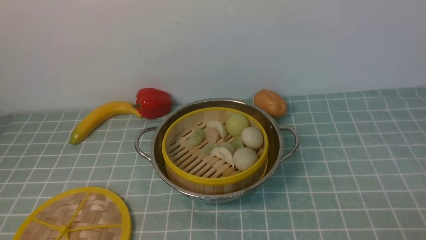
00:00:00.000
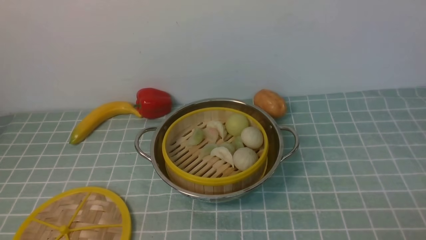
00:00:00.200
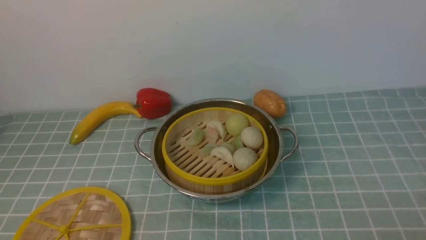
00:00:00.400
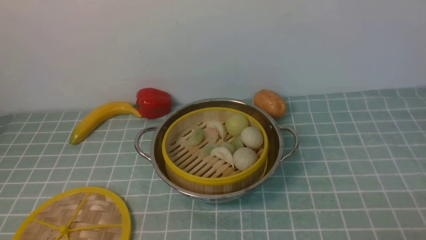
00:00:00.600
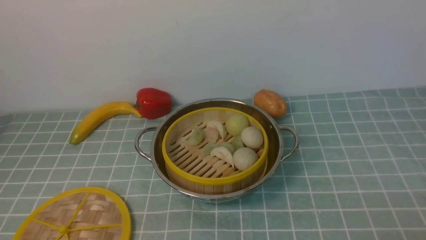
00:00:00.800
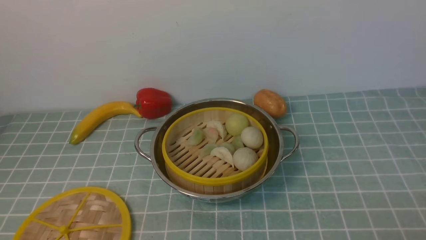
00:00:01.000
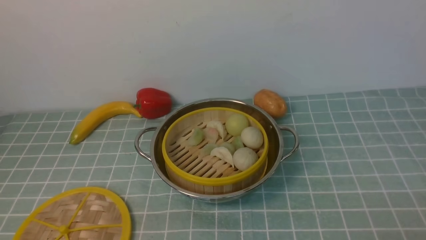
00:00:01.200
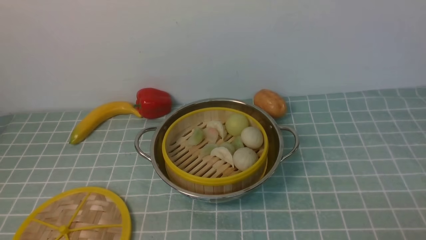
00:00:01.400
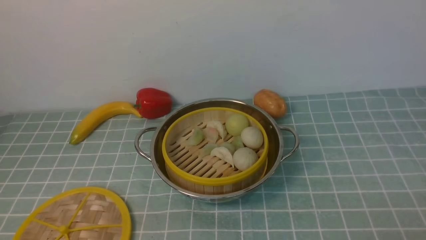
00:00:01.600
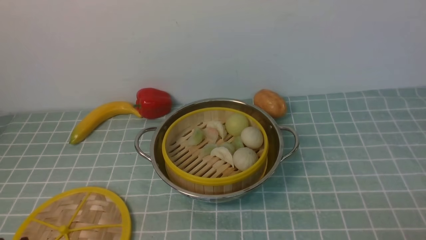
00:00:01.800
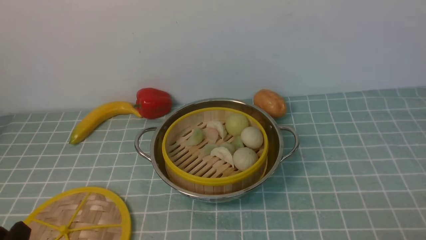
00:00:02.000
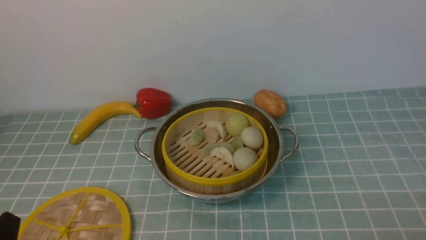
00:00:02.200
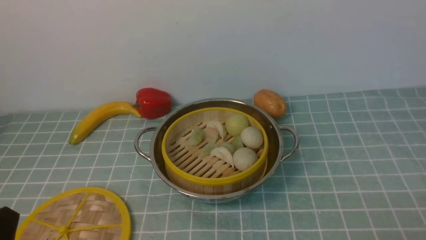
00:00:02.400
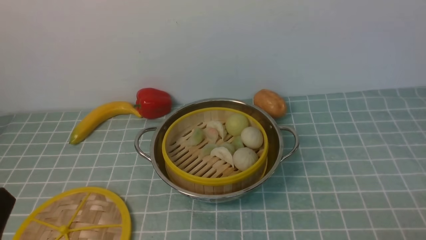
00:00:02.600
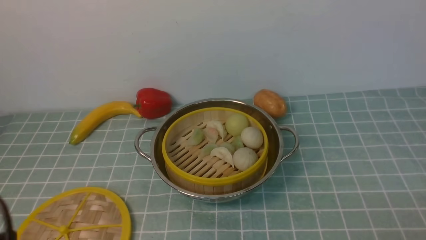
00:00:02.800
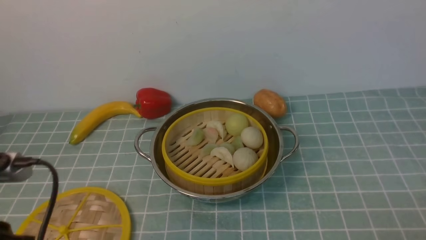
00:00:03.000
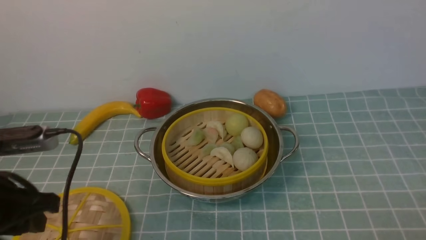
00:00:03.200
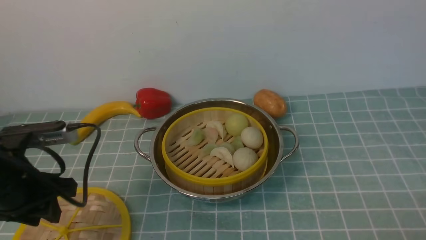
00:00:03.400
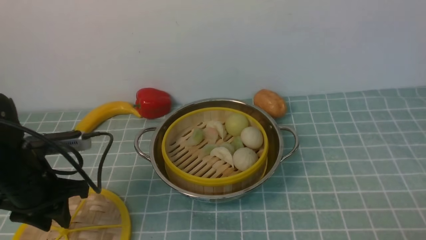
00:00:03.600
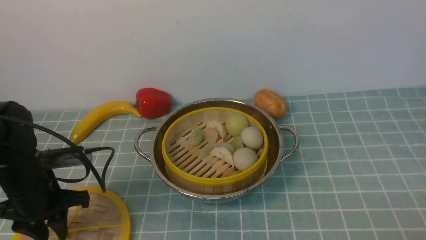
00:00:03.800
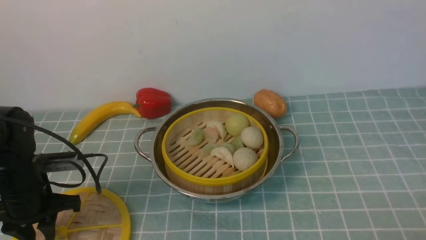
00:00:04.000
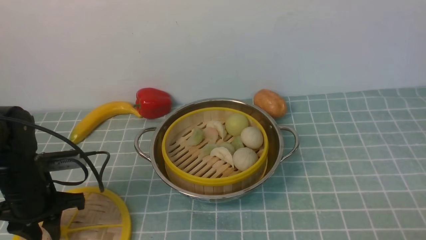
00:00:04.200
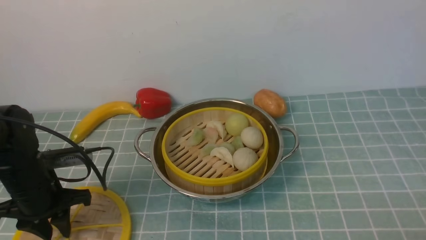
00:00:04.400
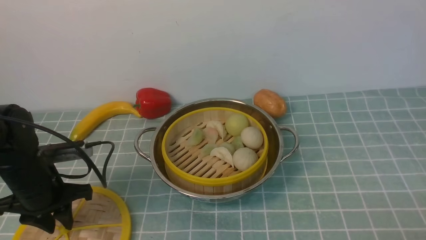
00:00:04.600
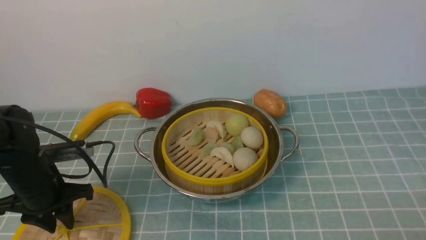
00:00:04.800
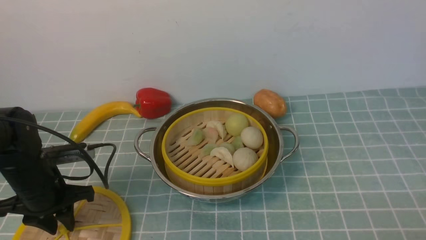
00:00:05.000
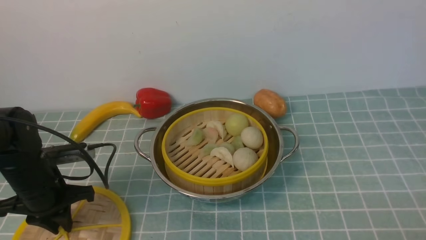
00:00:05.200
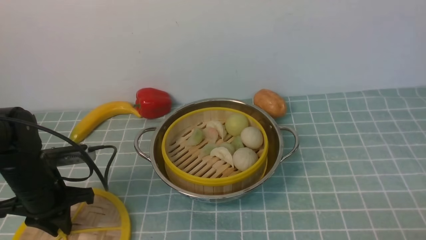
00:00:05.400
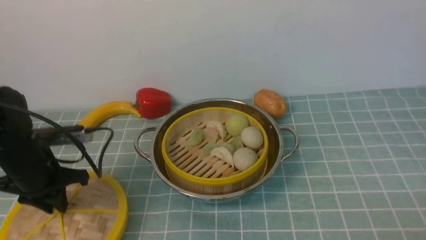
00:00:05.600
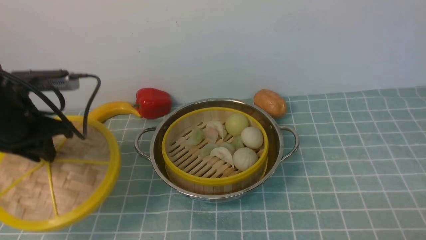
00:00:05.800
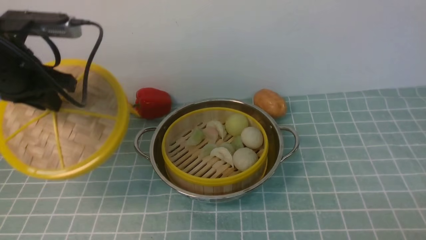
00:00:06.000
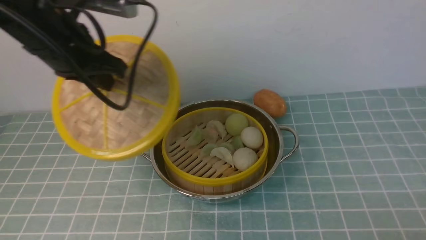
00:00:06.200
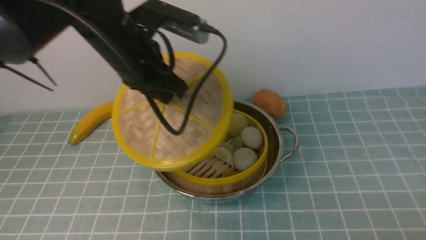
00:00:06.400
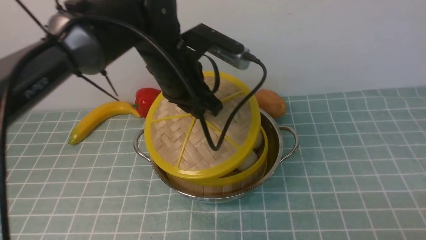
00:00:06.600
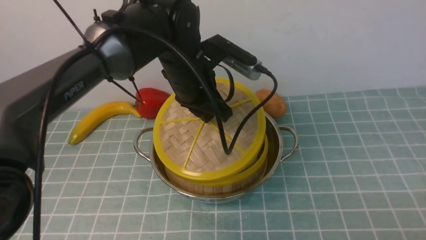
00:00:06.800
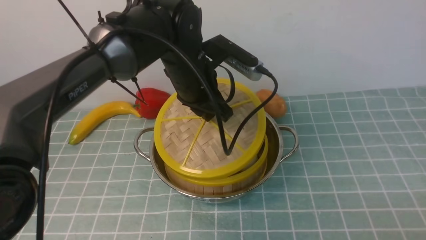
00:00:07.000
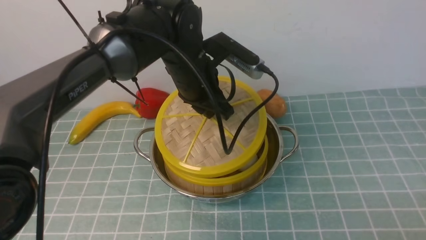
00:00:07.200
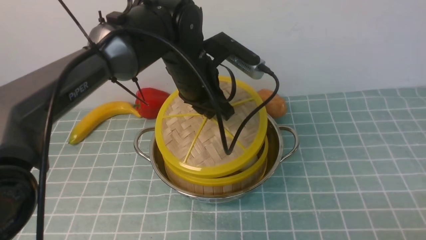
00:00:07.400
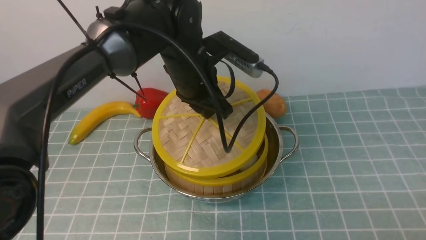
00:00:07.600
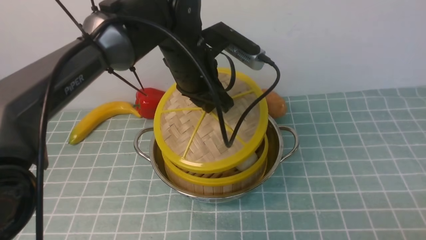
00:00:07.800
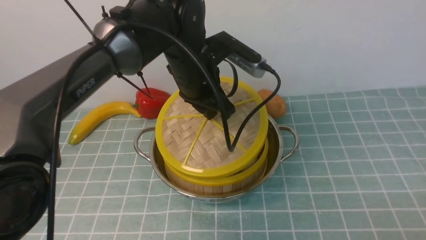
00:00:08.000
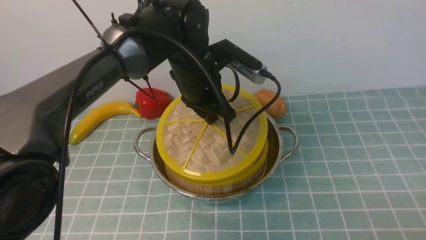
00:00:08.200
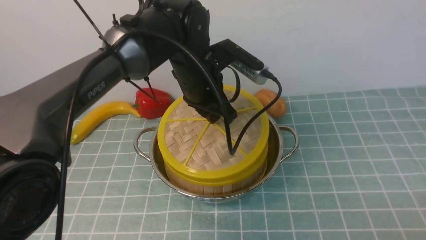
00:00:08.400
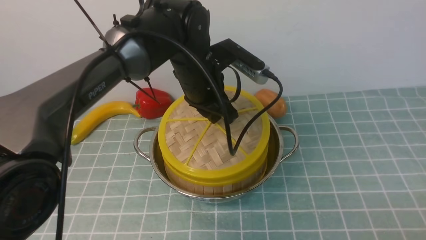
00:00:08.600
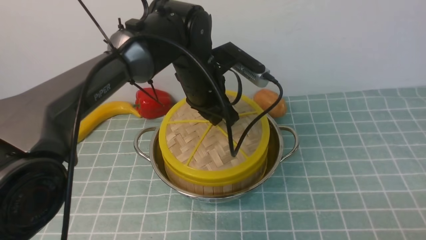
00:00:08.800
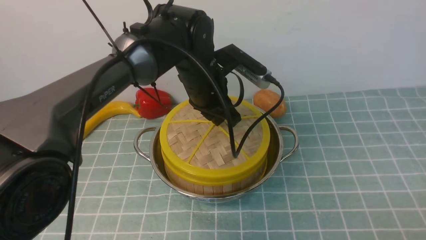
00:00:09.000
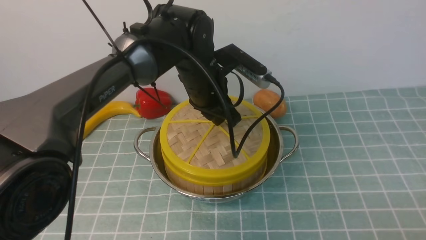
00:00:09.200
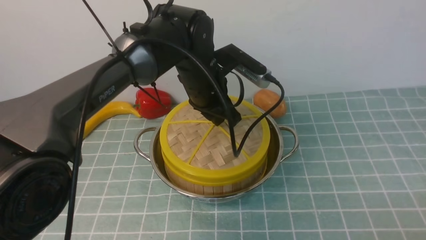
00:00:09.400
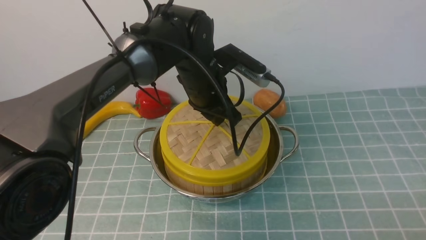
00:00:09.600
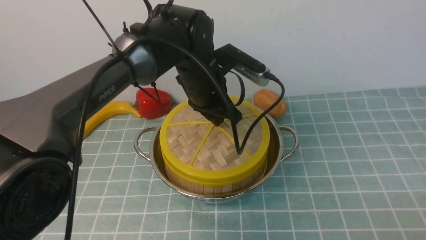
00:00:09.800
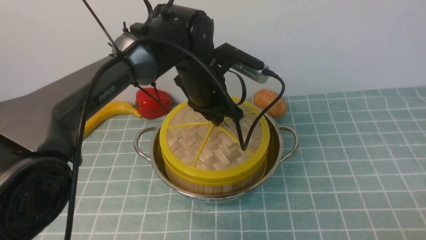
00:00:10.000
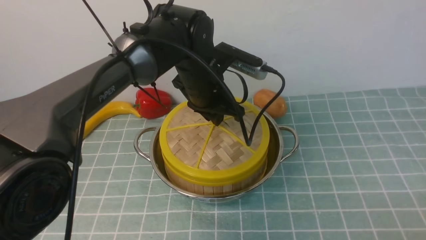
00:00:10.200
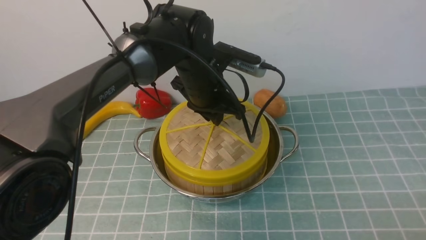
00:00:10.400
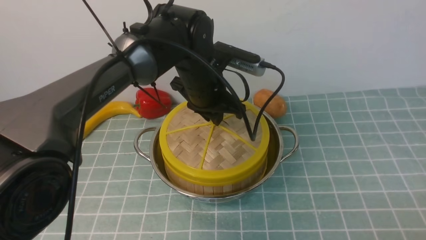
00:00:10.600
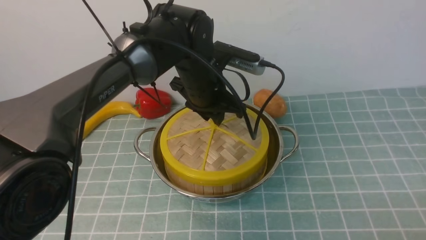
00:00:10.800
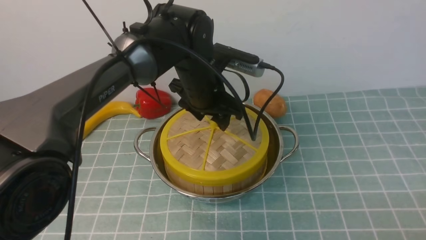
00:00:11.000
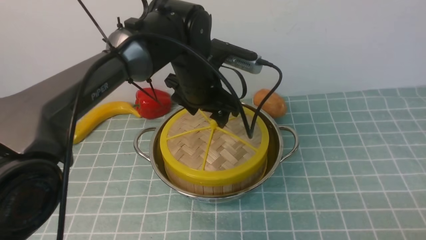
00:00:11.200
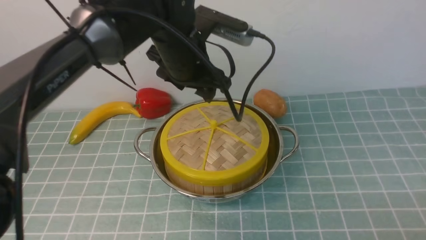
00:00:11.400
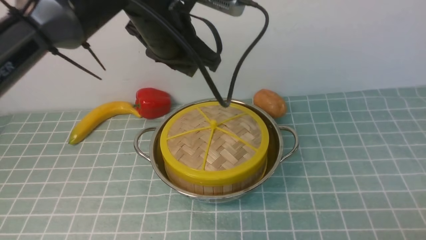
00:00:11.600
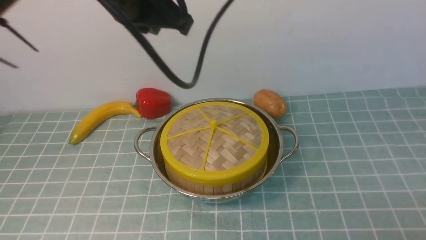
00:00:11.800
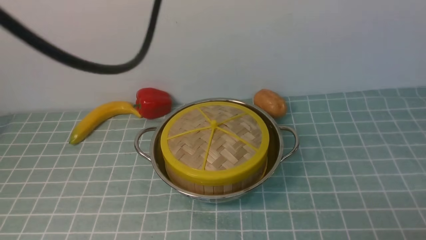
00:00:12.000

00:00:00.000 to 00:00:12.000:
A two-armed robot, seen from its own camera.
Task of the whole recording: place the steamer in the pot on the blue tablecloth, and put the lid on the steamer.
Step, 00:00:00.000 to 00:00:05.800: use the left arm to lift the lid of the steamer.
Step, 00:00:06.000 to 00:00:11.400: use the left arm to place the steamer lid on the steamer.
00:00:01.600 to 00:00:03.000: The left gripper goes some 15 cm upward and forward.
00:00:03.000 to 00:00:04.400: The left gripper heads forward and downward, covering some 20 cm.
00:00:04.400 to 00:00:06.000: The left gripper travels upward by about 15 cm, and closes its fingers.
00:00:06.000 to 00:00:07.600: The left gripper is displaced to the right by about 20 cm.
00:00:09.000 to 00:00:10.400: The grippers stay close to where they were, moving slightly.
00:00:10.400 to 00:00:12.000: The left gripper moves upward, backward and to the left, some 30 cm, and closes its fingers.

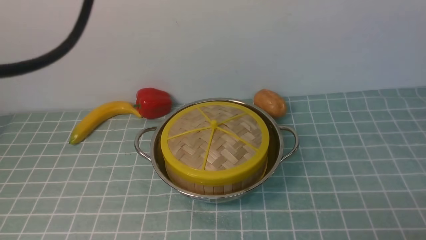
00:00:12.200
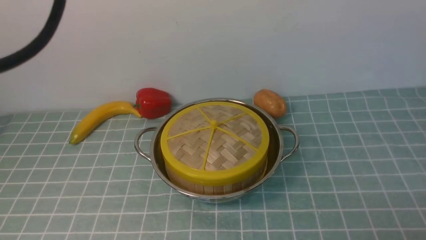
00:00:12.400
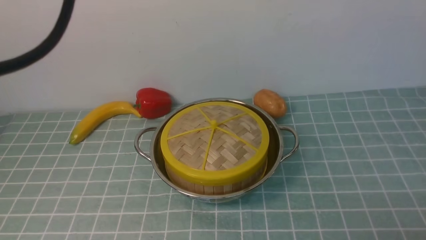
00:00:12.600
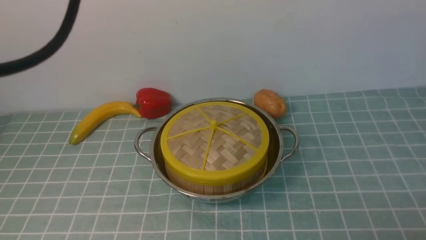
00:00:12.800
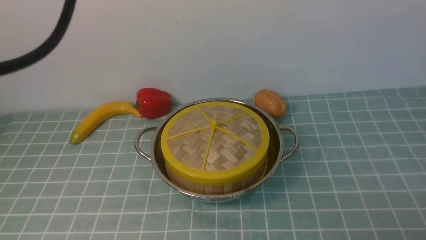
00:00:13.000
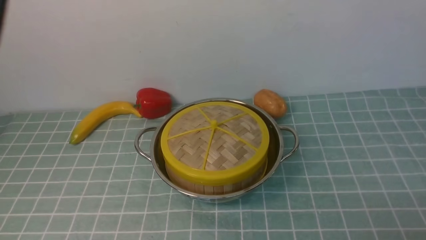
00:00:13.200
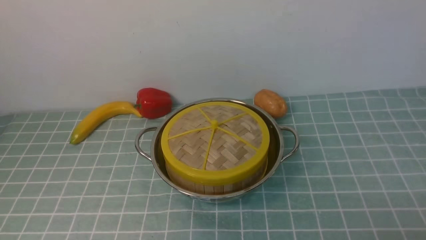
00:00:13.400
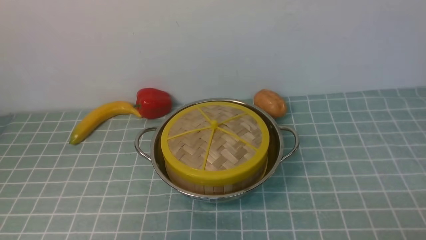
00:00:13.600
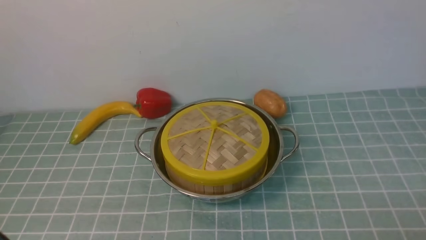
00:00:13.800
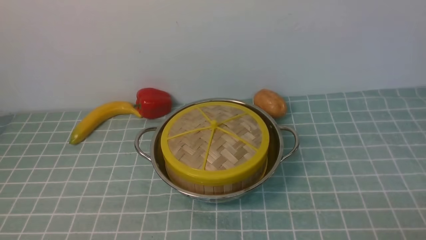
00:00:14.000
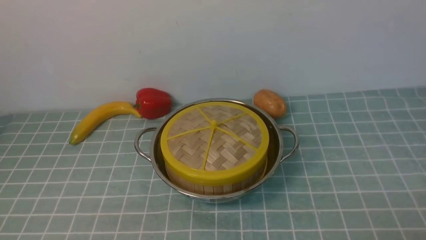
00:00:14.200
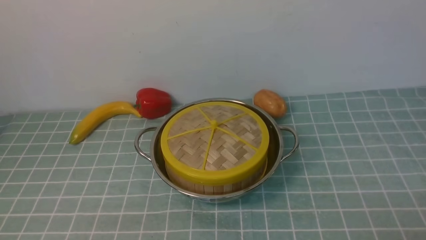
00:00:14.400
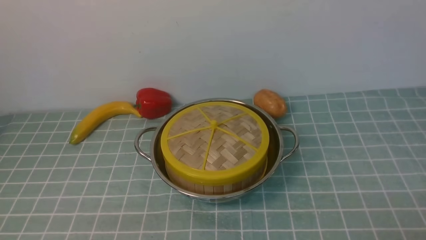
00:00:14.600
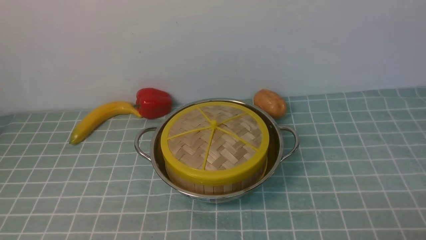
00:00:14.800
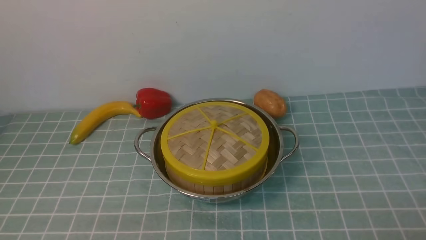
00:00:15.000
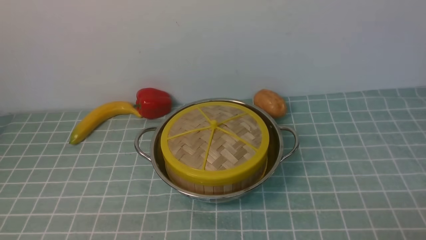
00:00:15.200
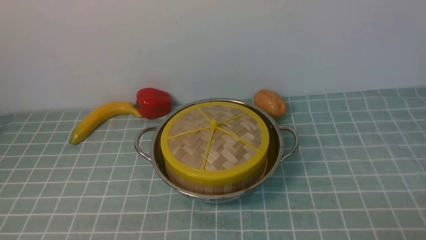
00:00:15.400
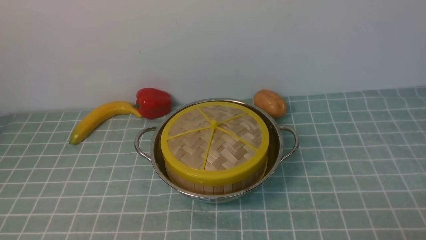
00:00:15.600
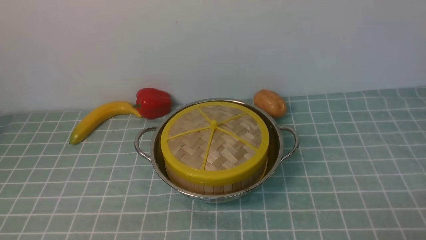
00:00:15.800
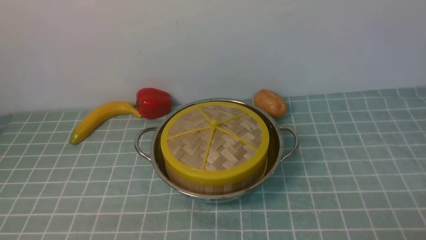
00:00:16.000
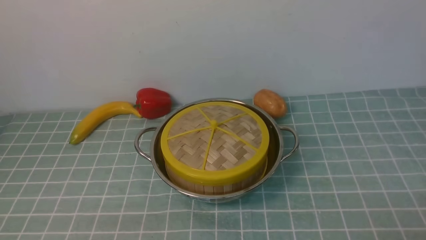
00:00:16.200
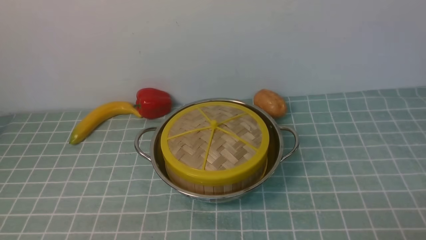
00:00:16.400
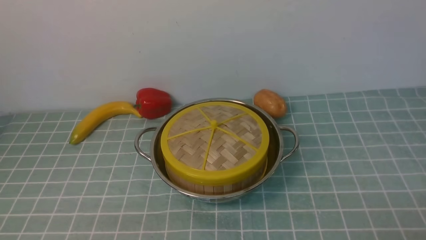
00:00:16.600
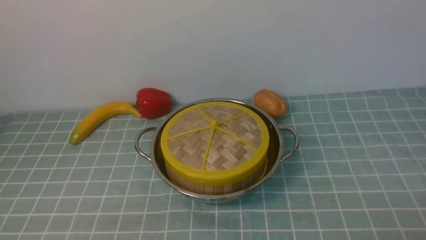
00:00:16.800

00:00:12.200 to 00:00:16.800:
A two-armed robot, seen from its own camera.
Task of the whole recording: place the steamer in the pot on the blue tablecloth, and put the lid on the steamer.
00:00:12.200 to 00:00:13.800: The left gripper goes about 35 cm downward, backward and to the left.
00:00:15.200 to 00:00:16.800: Both grippers stay about where they are.
